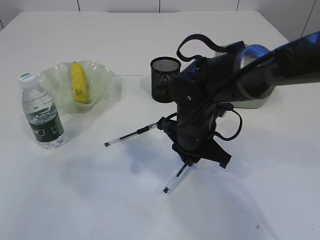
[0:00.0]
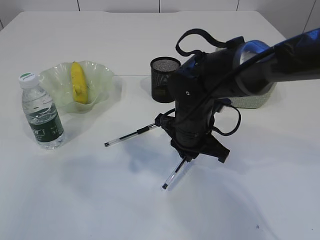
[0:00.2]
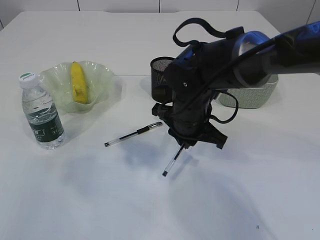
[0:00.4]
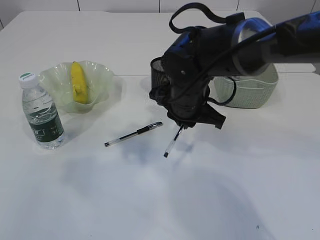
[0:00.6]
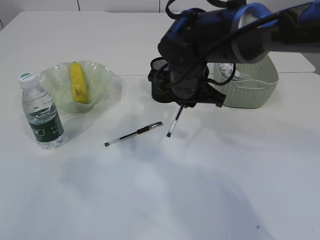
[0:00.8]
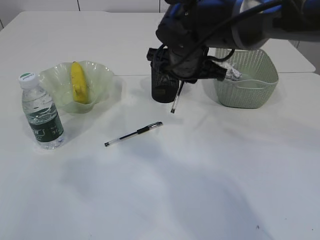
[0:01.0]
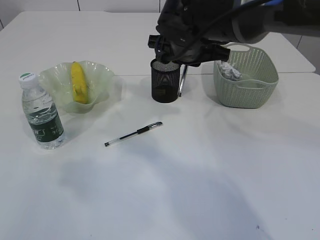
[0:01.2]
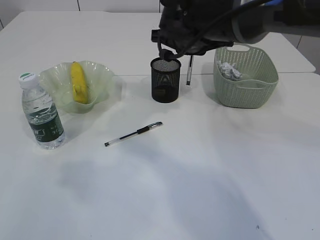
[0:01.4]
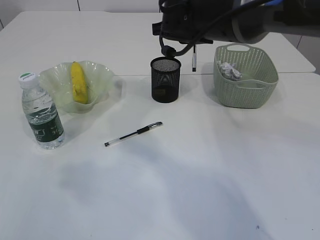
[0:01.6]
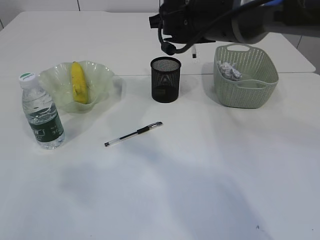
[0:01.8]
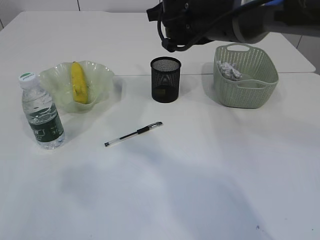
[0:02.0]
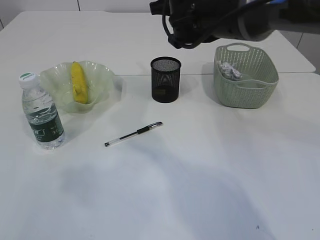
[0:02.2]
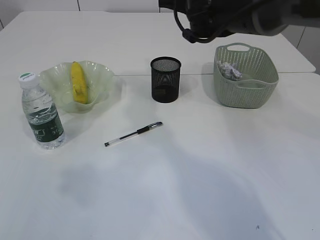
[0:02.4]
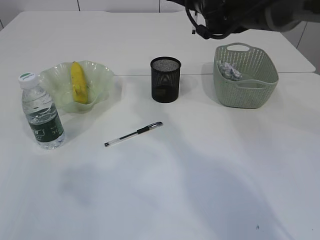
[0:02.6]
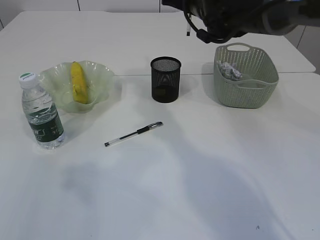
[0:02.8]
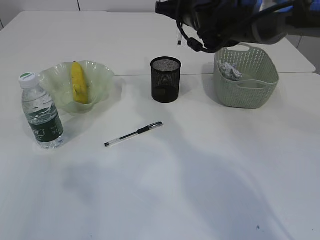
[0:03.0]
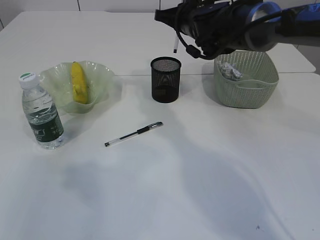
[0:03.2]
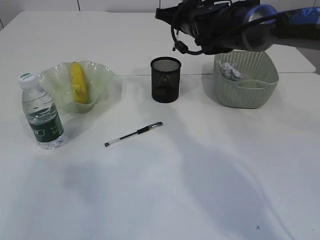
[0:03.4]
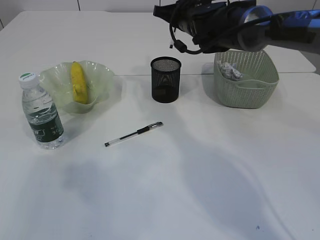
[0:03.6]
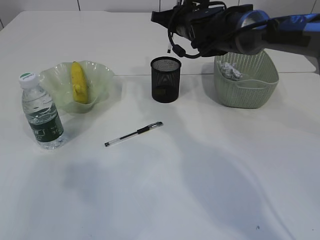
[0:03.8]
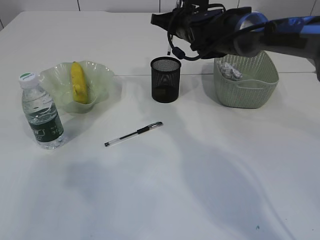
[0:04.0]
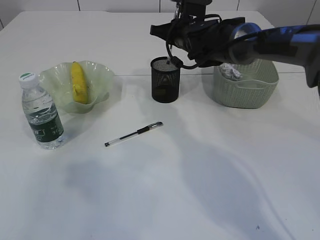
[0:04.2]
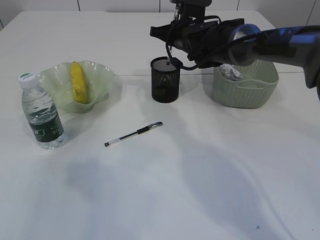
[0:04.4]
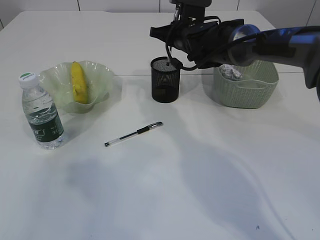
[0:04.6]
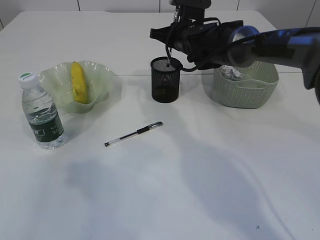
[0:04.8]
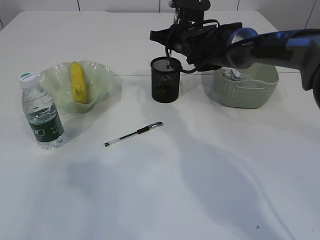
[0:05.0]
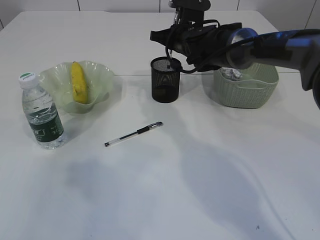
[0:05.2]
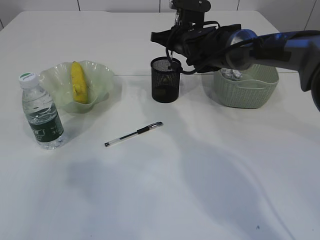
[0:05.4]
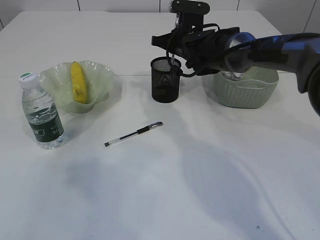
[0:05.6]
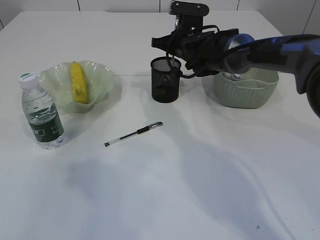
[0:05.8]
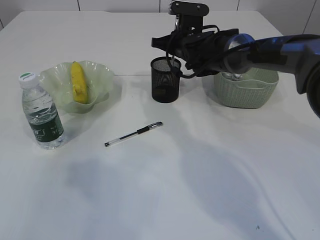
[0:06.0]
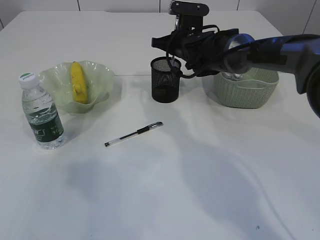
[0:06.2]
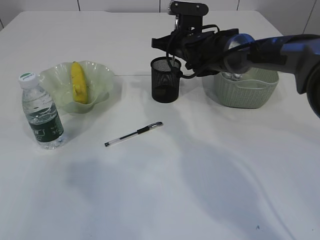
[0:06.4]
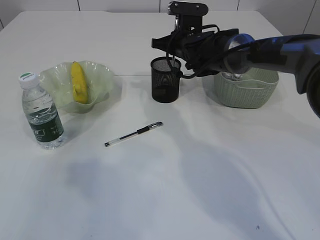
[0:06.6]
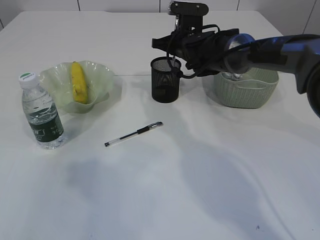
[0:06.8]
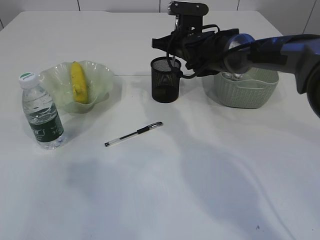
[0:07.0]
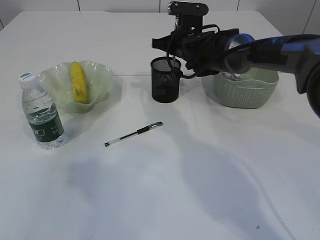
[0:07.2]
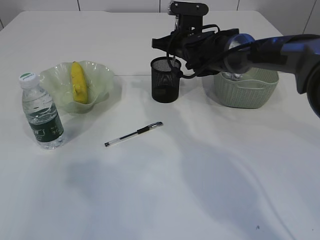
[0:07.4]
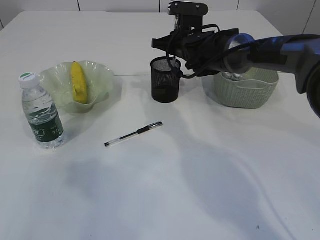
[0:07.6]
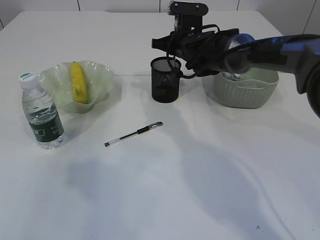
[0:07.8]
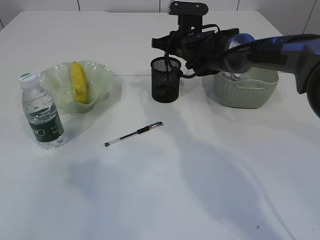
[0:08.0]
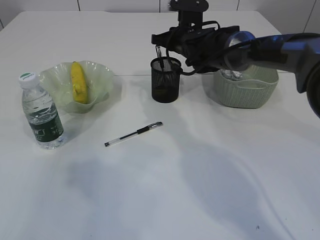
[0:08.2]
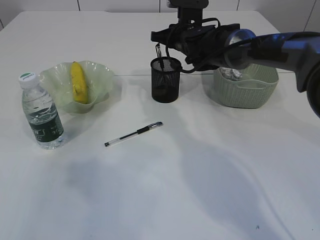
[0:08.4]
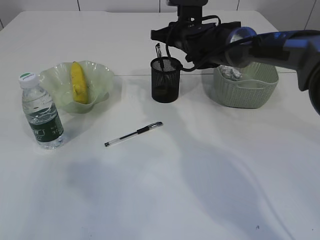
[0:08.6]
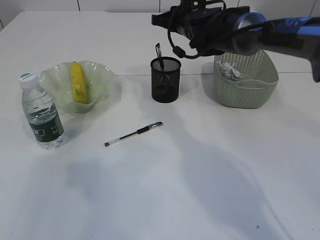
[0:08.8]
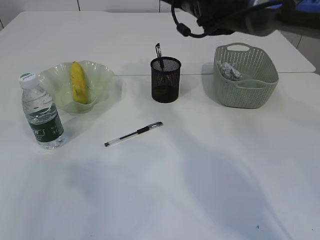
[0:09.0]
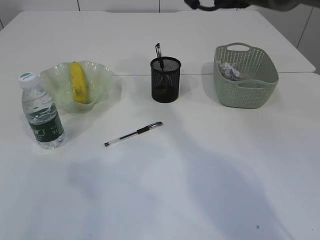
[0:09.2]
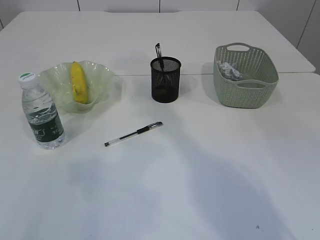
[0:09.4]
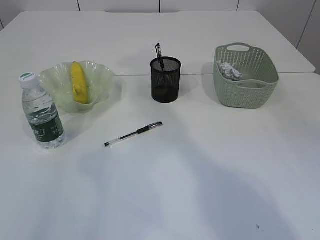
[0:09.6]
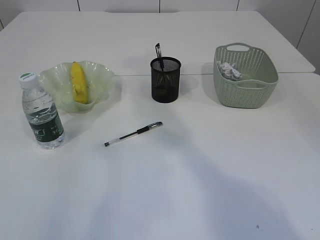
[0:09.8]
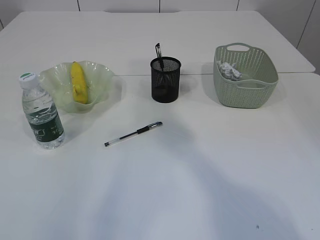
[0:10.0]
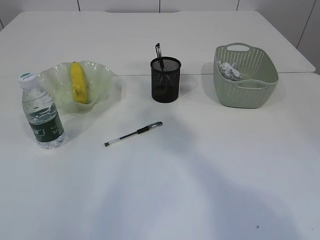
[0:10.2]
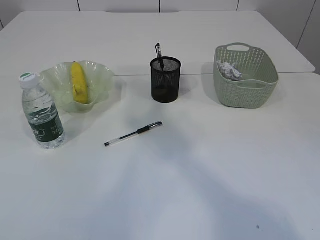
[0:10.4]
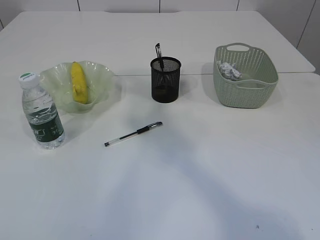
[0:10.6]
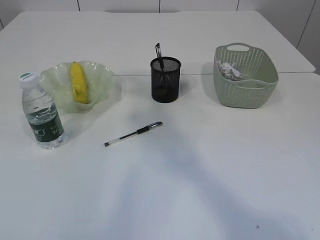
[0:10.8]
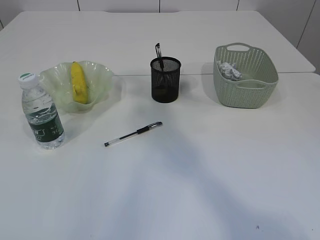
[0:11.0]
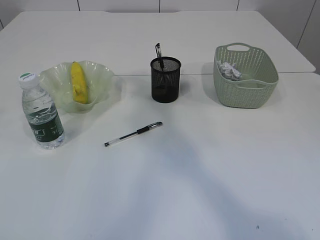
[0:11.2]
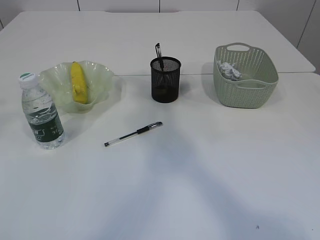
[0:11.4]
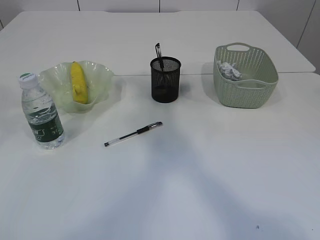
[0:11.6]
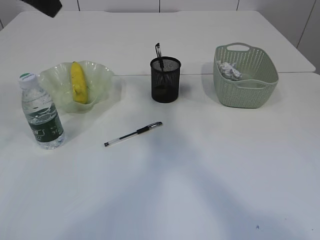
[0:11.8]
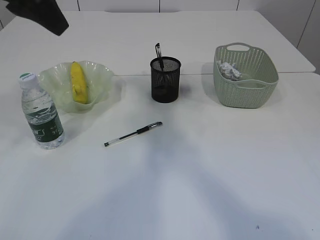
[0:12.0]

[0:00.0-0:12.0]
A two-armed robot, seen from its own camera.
Step, 0:00.4 to 0:08.6: Place the pen into the pen holder.
0:00.0 to 0:01.6: The right gripper goes roughly 15 cm upward and forward.
0:01.6 to 0:03.0: The right gripper goes approximately 5 cm forward.
0:03.0 to 0:04.4: The right gripper travels downward by about 5 cm.
0:04.4 to 0:06.0: The grippers move only a little.
0:06.0 to 0:07.6: Both grippers stay about where they are.
0:07.6 to 0:09.0: The right gripper moves upward, about 10 cm.
0:09.0 to 0:10.4: The right gripper is displaced upward and backward by about 25 cm, while the left gripper moves upward, approximately 10 cm.
0:10.4 to 0:12.0: The left gripper is displaced forward and to the right by some 15 cm.

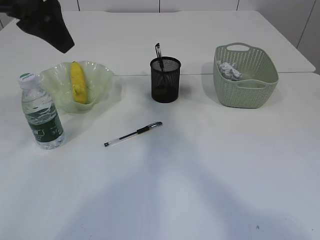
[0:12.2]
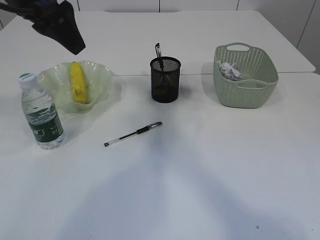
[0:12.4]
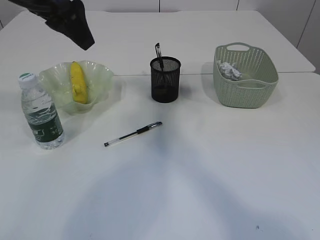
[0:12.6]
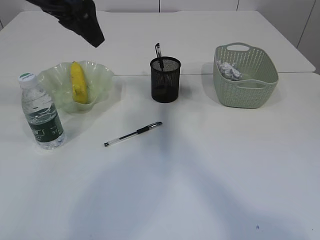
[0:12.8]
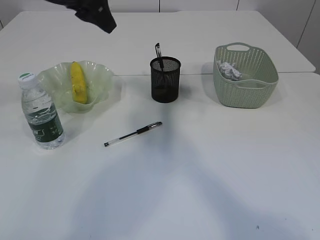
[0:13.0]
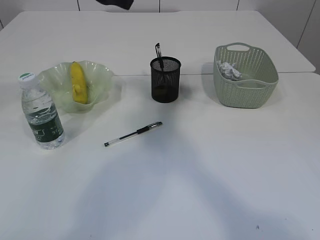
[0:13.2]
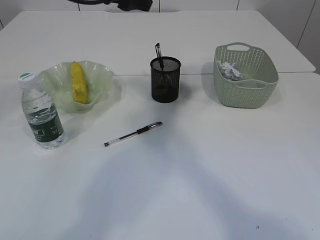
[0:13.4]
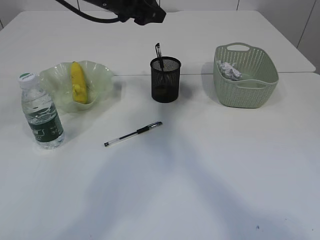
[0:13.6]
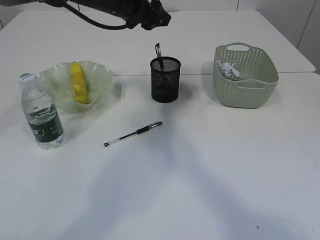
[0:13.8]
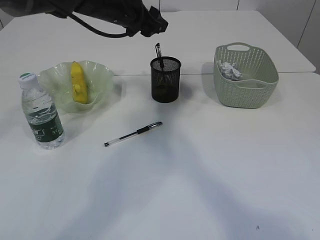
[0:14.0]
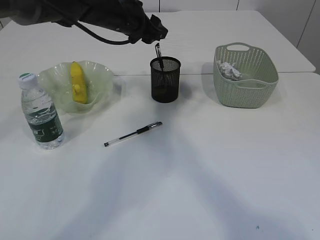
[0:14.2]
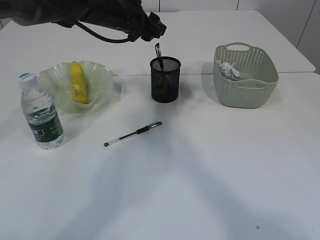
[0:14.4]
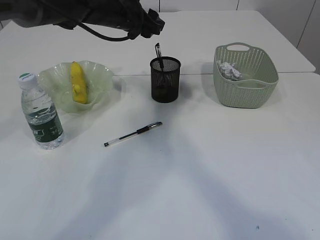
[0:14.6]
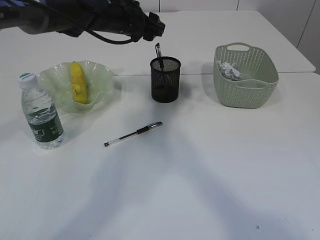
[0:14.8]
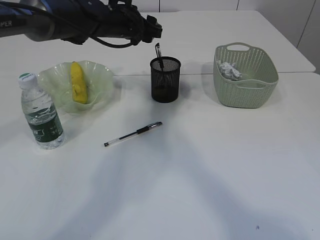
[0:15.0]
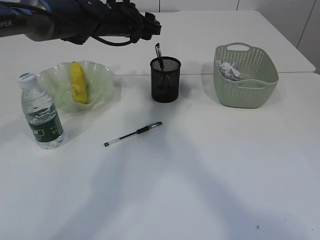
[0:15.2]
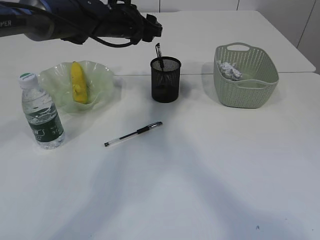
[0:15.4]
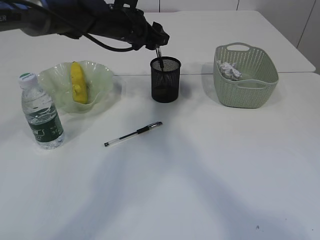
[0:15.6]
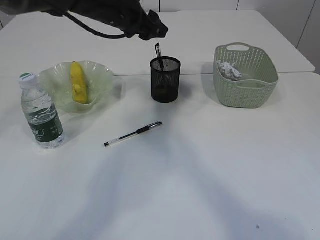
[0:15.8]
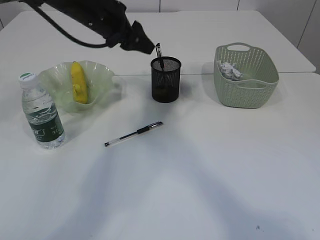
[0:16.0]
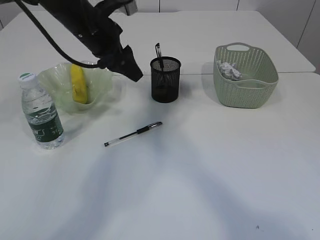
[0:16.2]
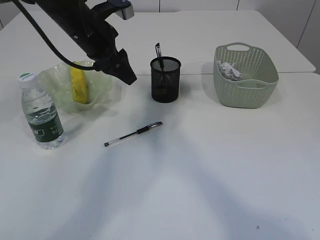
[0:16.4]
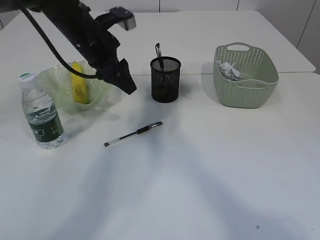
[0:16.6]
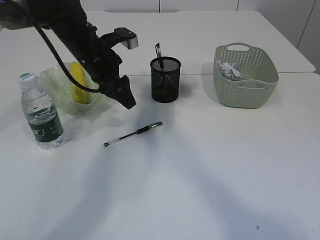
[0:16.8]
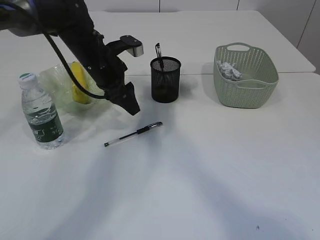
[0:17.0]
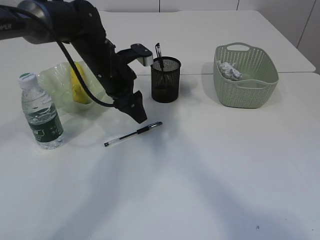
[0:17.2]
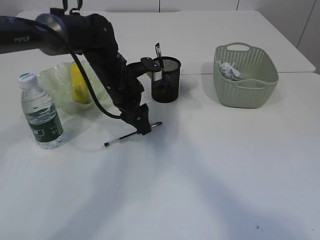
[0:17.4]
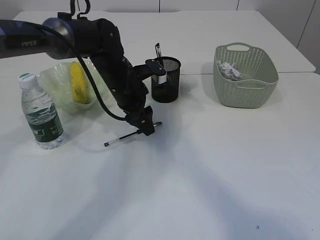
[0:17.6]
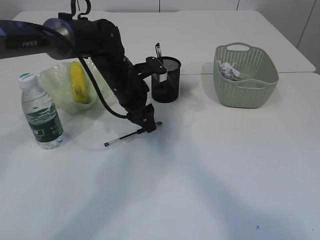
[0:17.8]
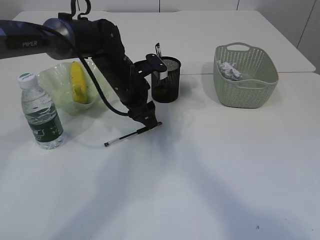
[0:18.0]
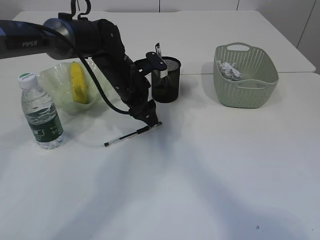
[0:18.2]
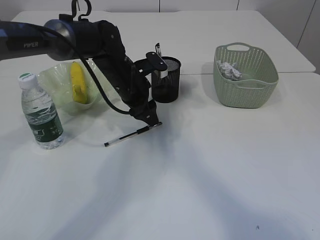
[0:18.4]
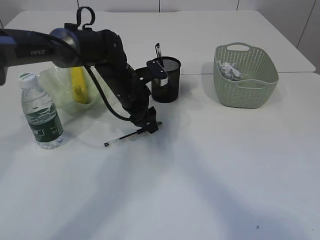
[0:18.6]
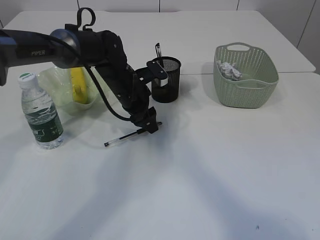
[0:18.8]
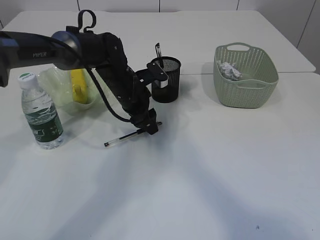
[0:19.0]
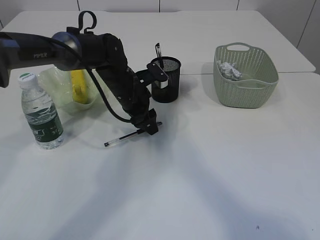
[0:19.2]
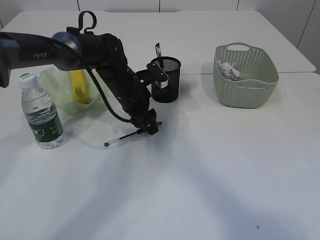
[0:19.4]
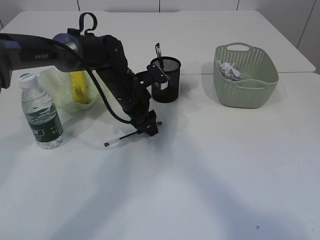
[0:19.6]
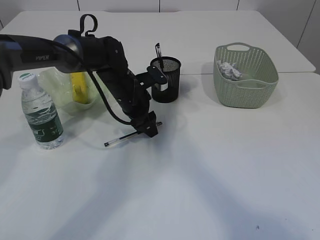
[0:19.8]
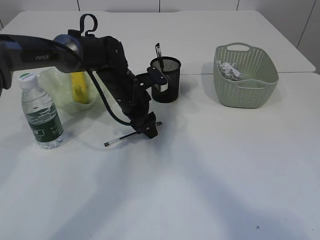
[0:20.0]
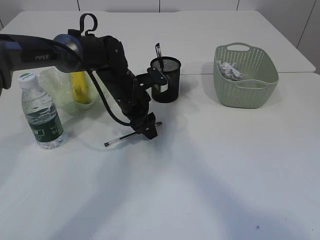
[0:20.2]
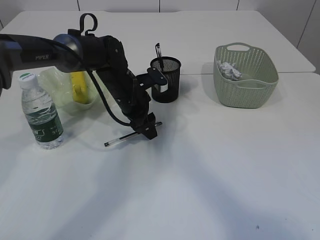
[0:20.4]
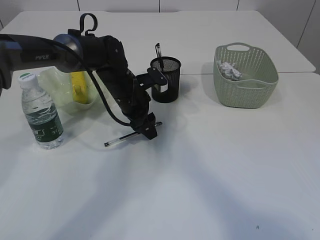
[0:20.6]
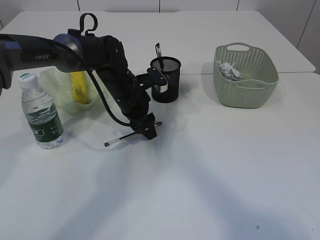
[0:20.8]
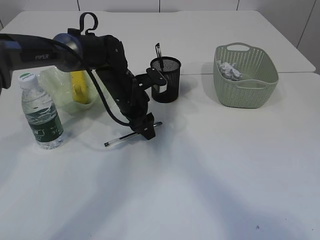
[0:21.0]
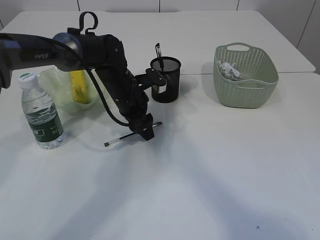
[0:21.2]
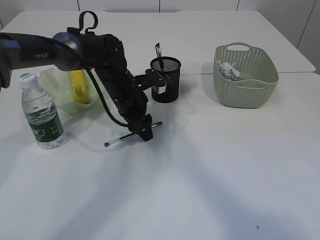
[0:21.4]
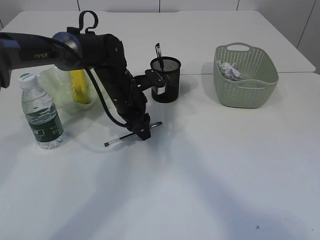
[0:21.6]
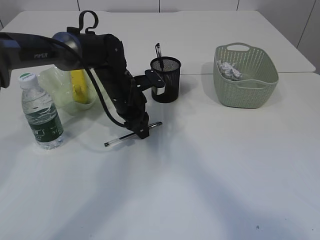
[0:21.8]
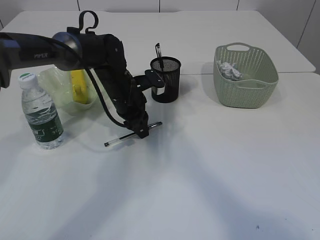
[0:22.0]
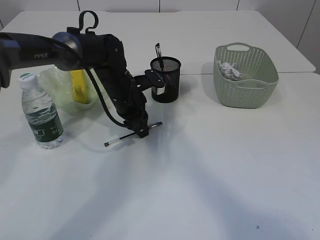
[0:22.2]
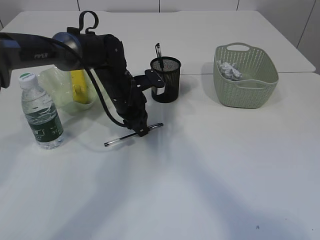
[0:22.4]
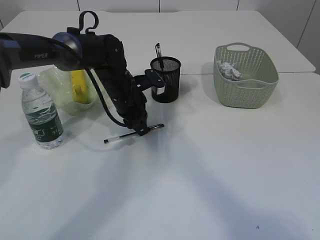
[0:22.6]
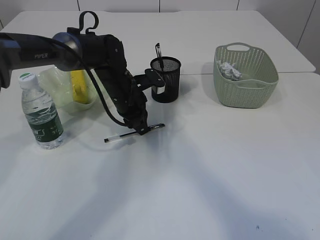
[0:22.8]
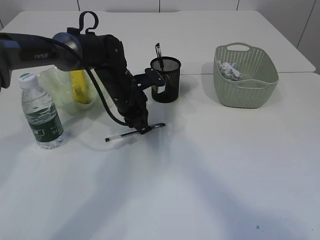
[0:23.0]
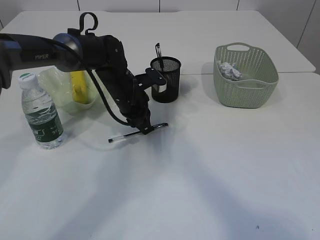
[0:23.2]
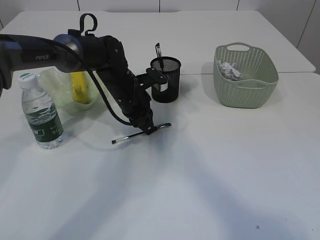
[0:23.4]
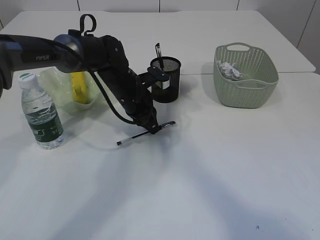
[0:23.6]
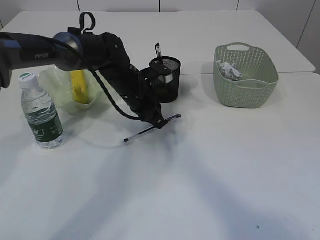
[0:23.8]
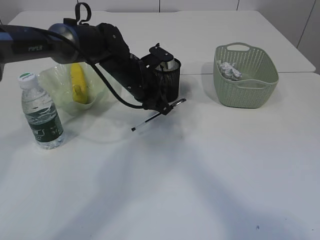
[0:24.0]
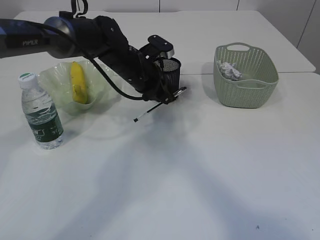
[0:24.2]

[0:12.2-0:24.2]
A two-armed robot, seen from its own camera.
0:12.2 to 0:13.8: The left gripper is displaced forward, to the right and downward by some 20 cm.
0:13.8 to 0:15.2: The left gripper goes some 5 cm downward.
0:15.2 to 0:16.6: The left gripper moves backward, some 5 cm.
0:16.6 to 0:18.2: The left gripper is displaced downward and to the right by some 10 cm.
0:18.2 to 0:19.8: The grippers stay close to where they were, moving slightly.
0:19.8 to 0:21.2: Both grippers stay put.
0:21.2 to 0:22.6: The left gripper closes up.
0:22.6 to 0:24.2: The left gripper ends up about 5 cm from where it was.
